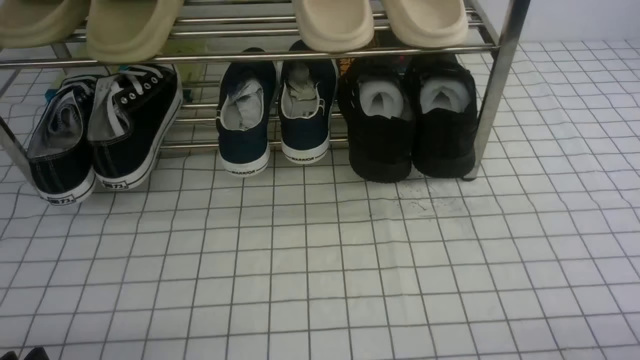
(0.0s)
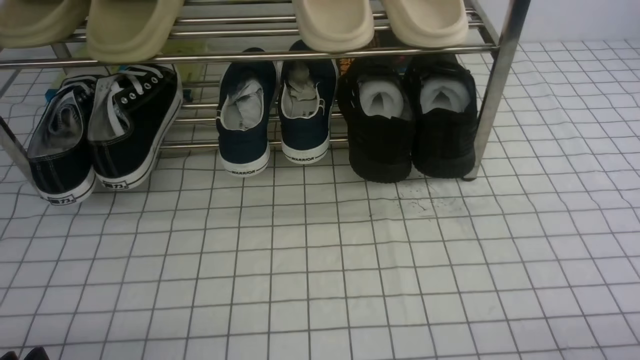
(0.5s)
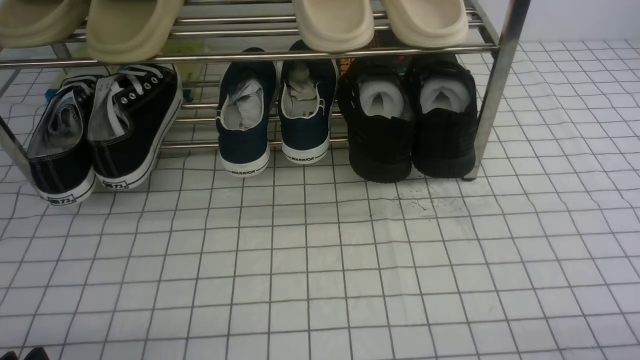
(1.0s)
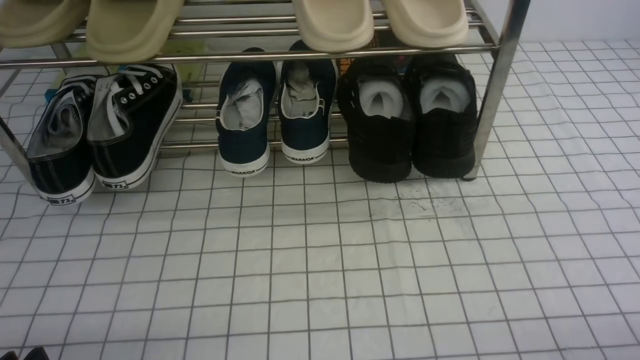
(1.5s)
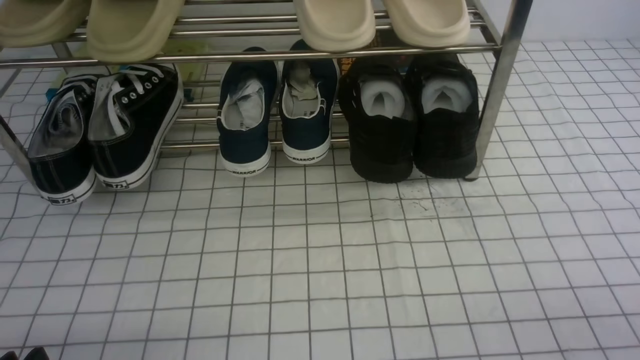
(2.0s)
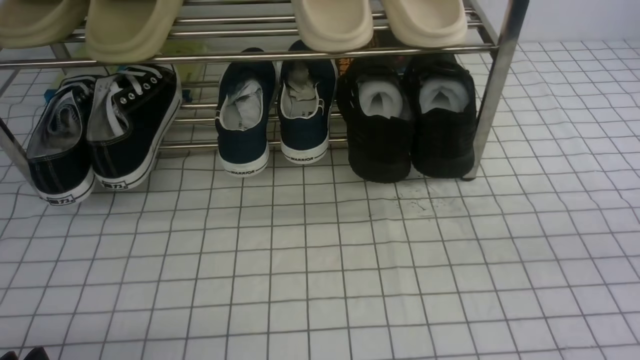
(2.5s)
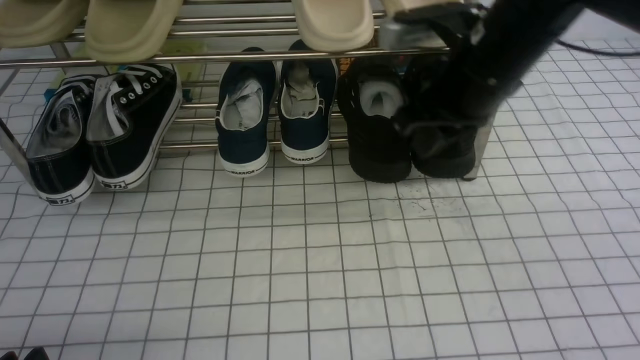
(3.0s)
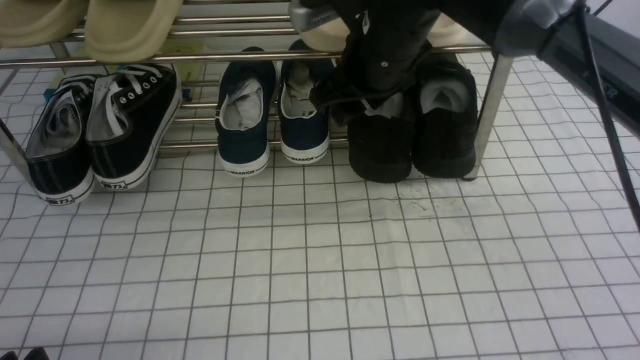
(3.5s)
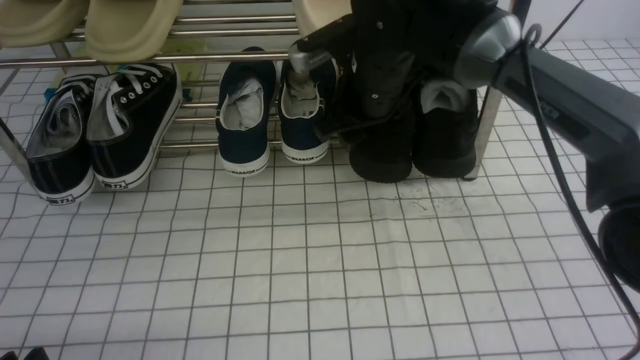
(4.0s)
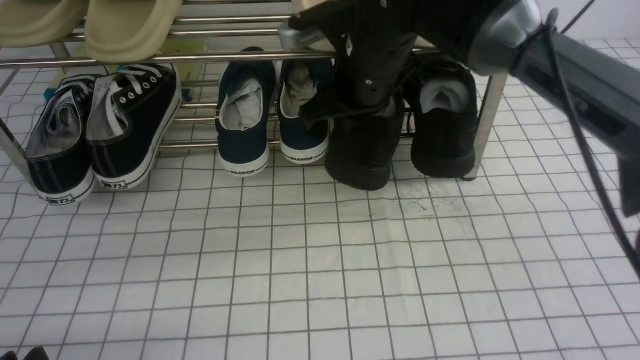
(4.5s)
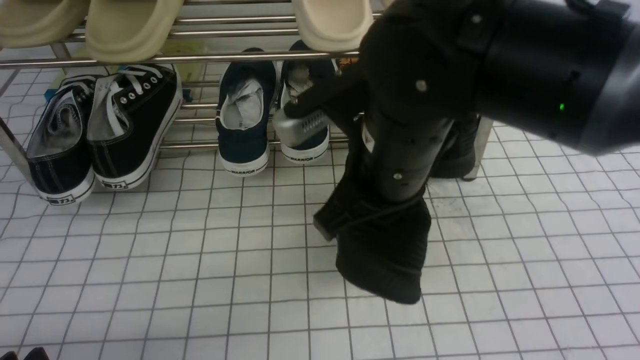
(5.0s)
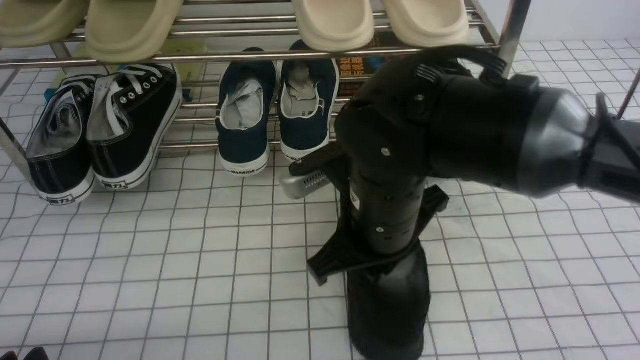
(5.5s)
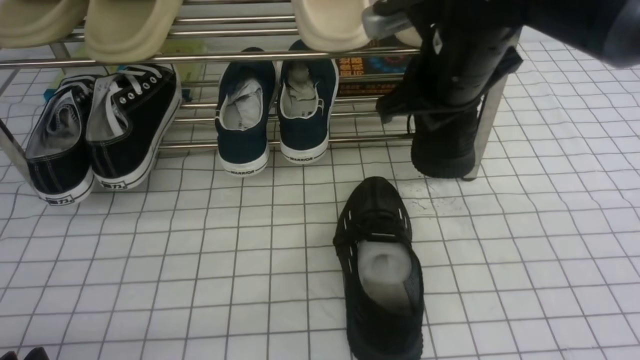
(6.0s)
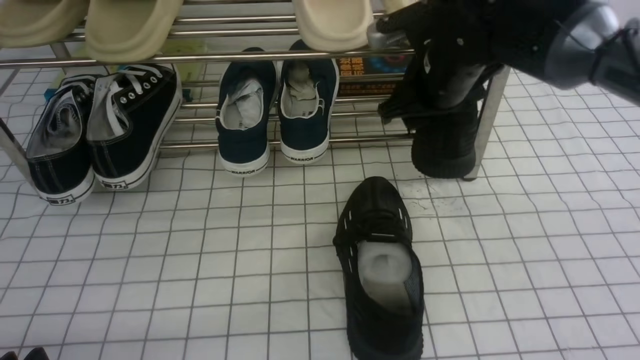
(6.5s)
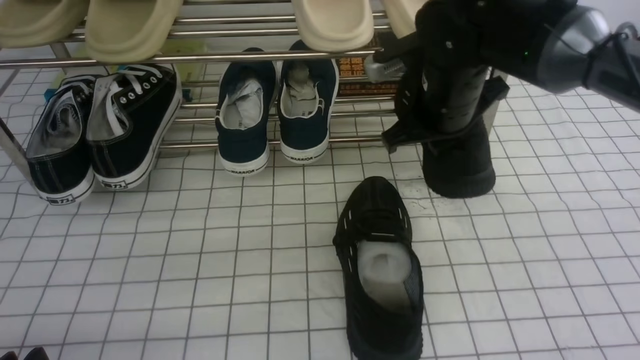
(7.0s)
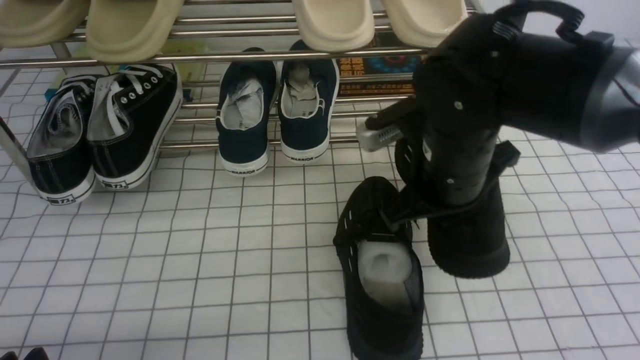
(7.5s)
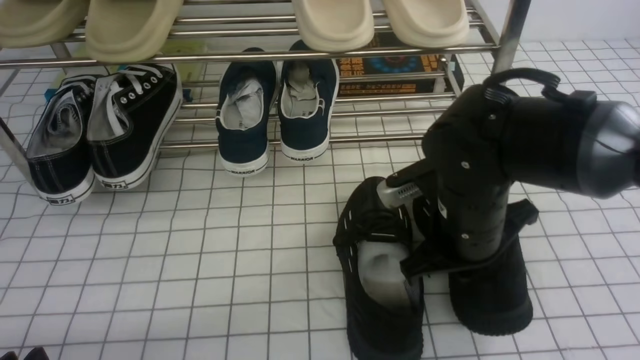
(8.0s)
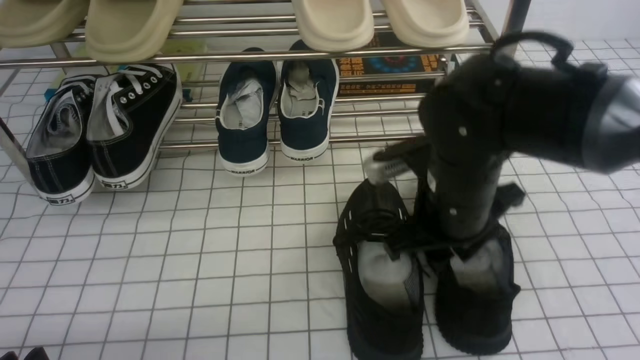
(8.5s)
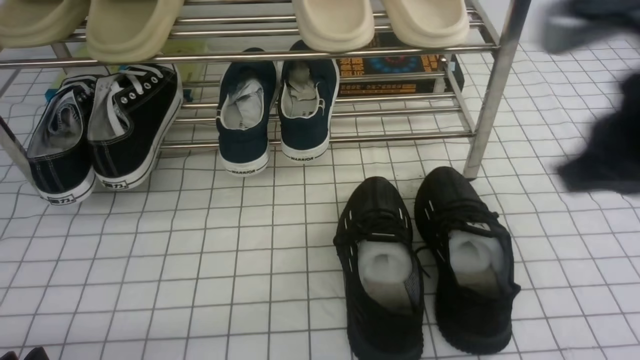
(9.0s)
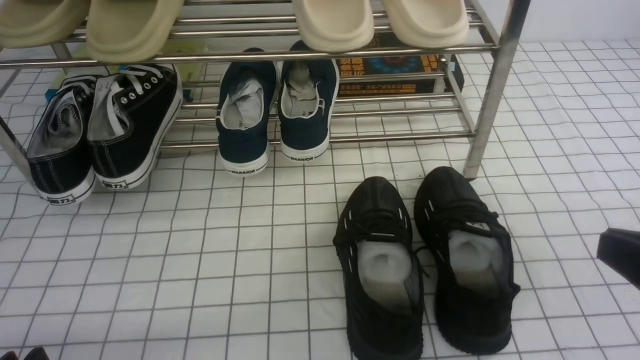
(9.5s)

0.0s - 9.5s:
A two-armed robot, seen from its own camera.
Step, 0.0s - 4.0s: use the right arm to clamp a shoe on the right side of the shoe rack.
Step, 4.5s - 5.5s: use the right arm to take out the clamped shoe from the shoe rack and put it down.
Step, 6.0s - 6.5s: use the right arm to clamp a shoe on the right side of the shoe rack.
Step, 7.0s - 8.5s: use the right arm to take out the clamped shoe from the shoe rack and put it down.
0.0s - 2.0s: The right gripper goes about 5 cm upward.
2.0s - 4.0s: The right gripper is displaced forward and to the left by approximately 40 cm, and opens up.
4.0s - 5.5s: The right gripper travels backward by roughly 15 cm, and closes up.
5.5s - 7.5s: The right gripper is displaced to the right by some 5 cm, travels forward and back again, approximately 15 cm each way, and opens and closes again.
7.5s - 9.5s: The right gripper goes about 25 cm backward and to the right, and opens, then closes again.

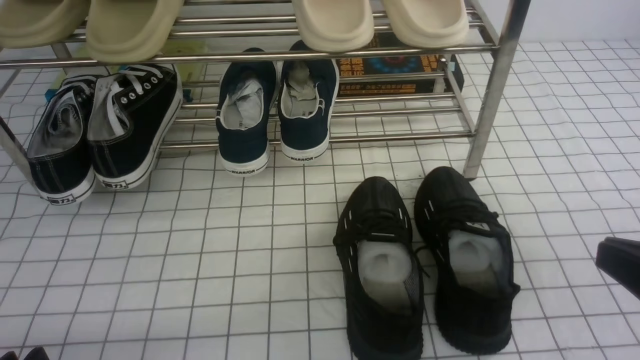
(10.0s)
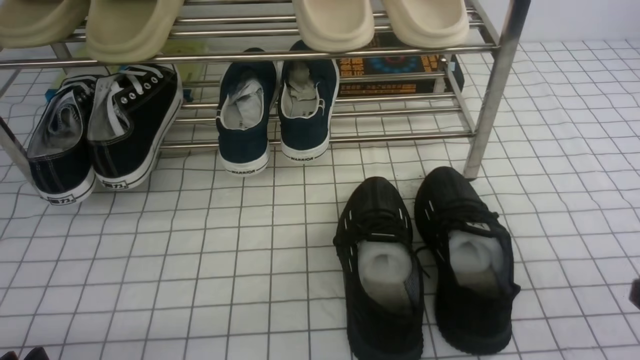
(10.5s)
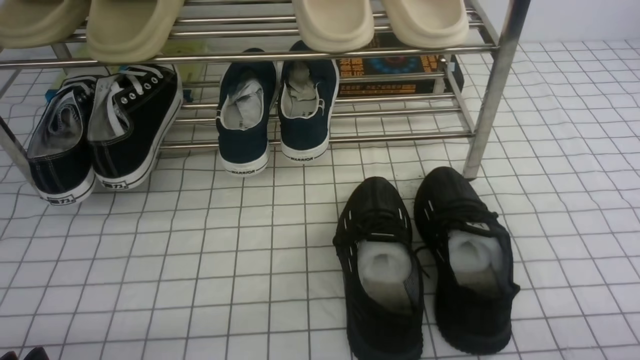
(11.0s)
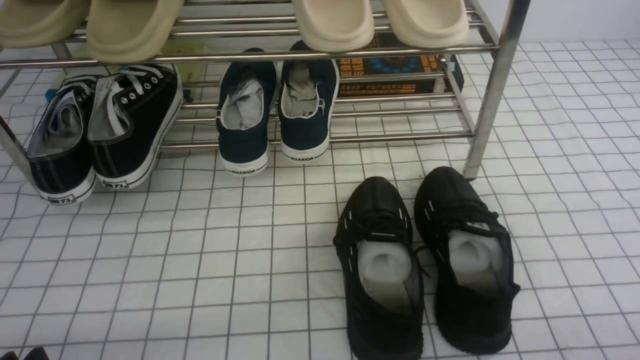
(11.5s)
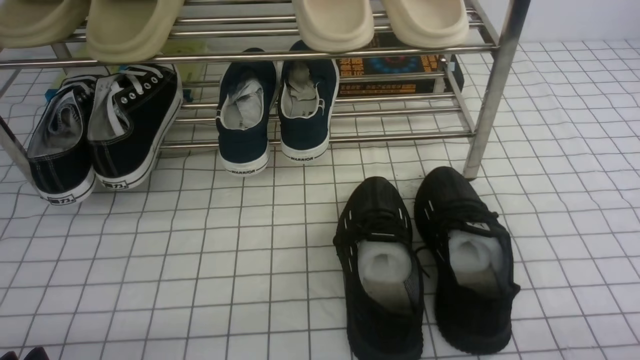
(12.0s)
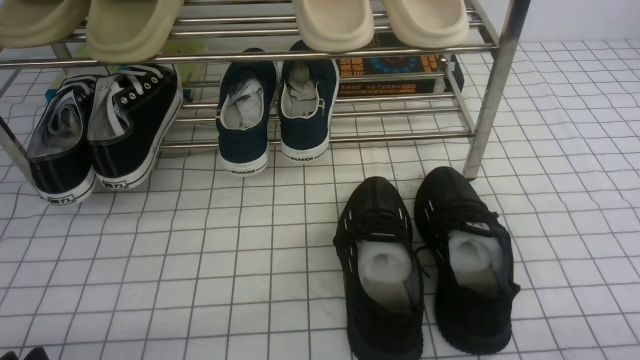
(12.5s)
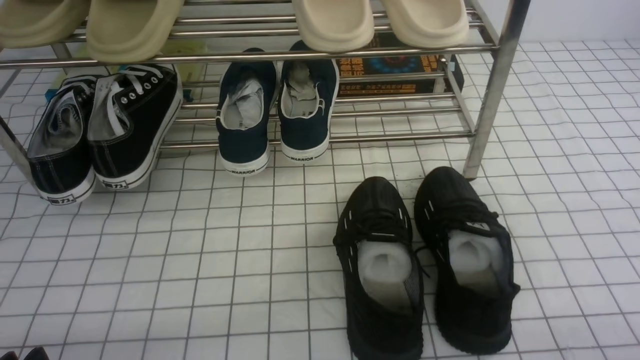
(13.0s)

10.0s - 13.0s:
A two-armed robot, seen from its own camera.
10.0s - 11.5s: The right gripper is displaced downward and to the right by approximately 15 cm.
11.5s - 13.0s: Both grippers stay put.

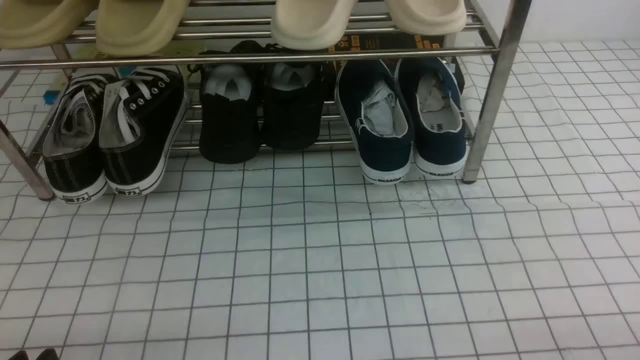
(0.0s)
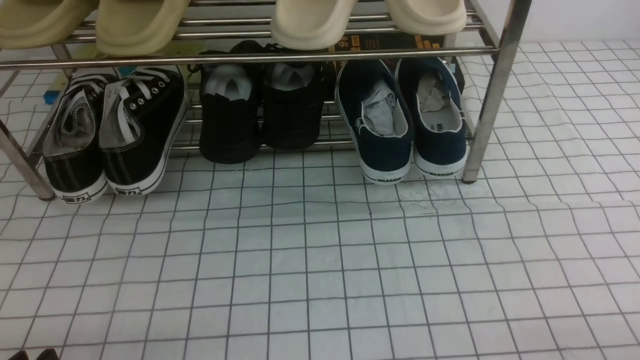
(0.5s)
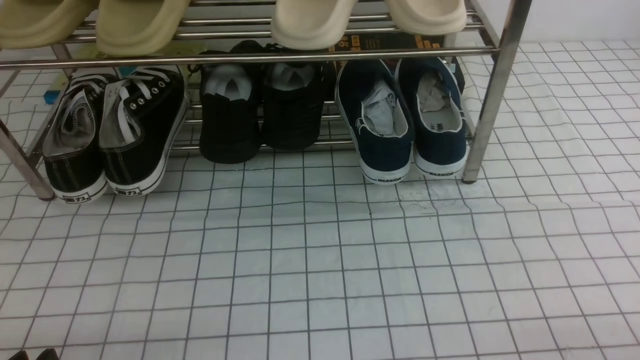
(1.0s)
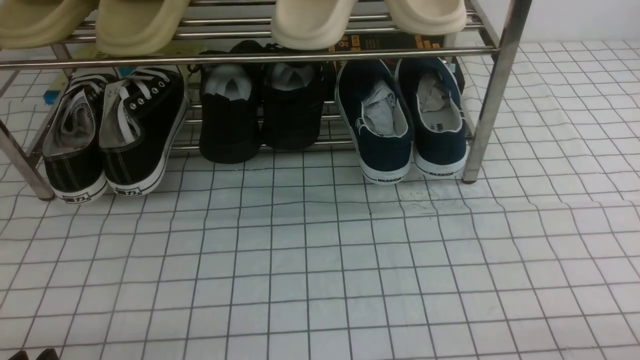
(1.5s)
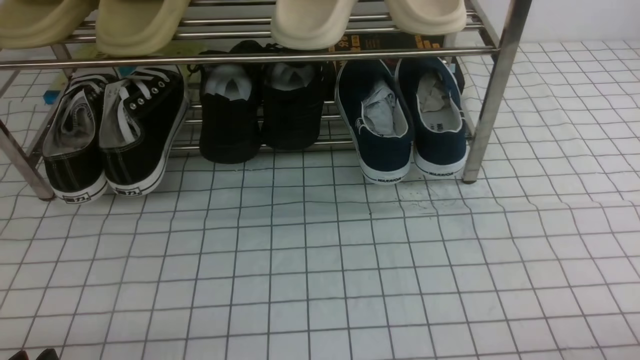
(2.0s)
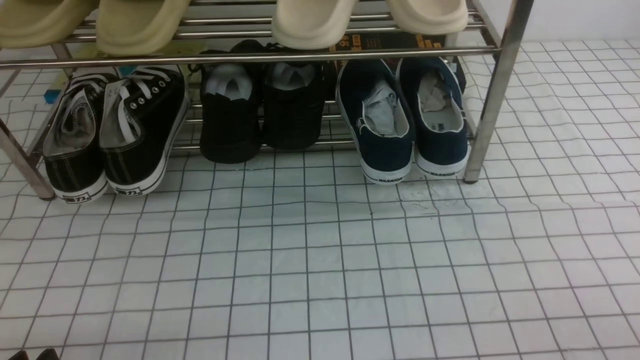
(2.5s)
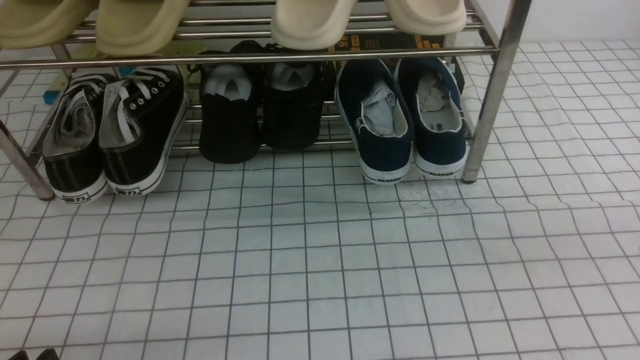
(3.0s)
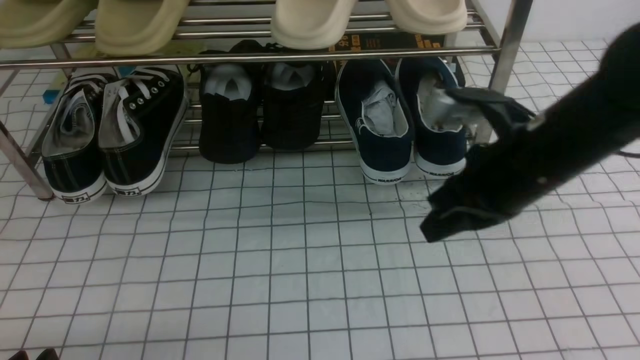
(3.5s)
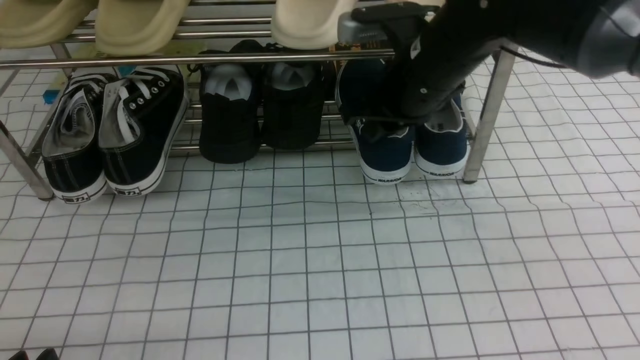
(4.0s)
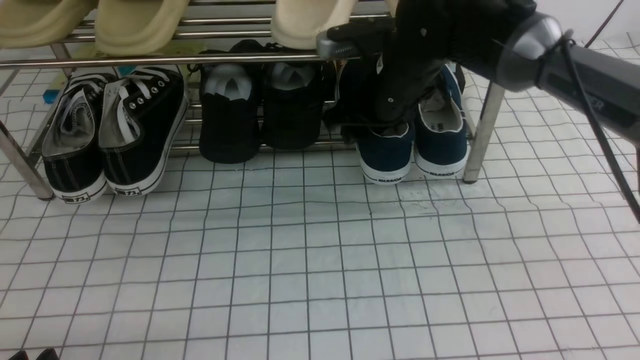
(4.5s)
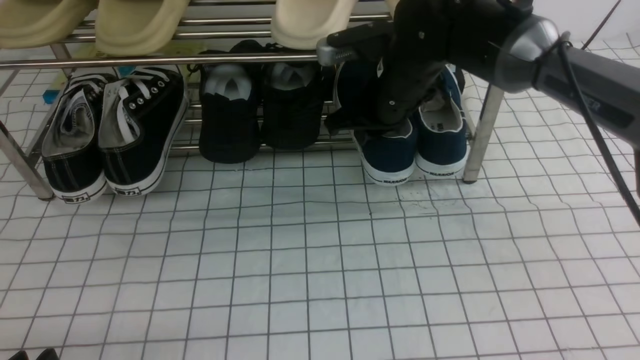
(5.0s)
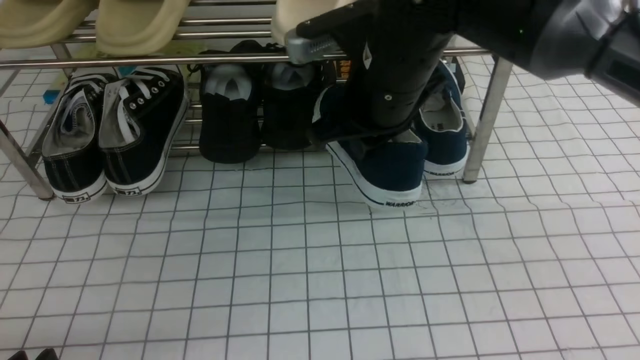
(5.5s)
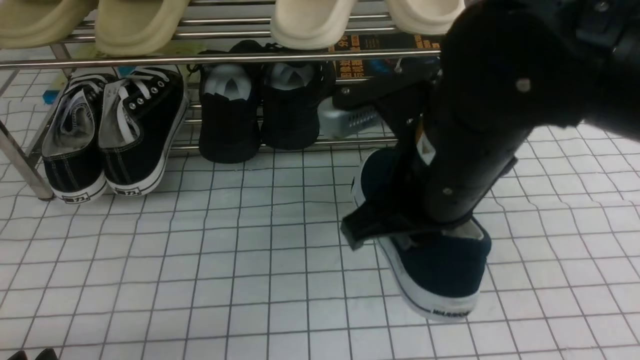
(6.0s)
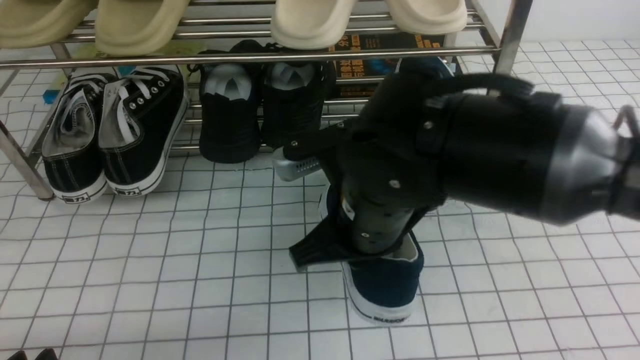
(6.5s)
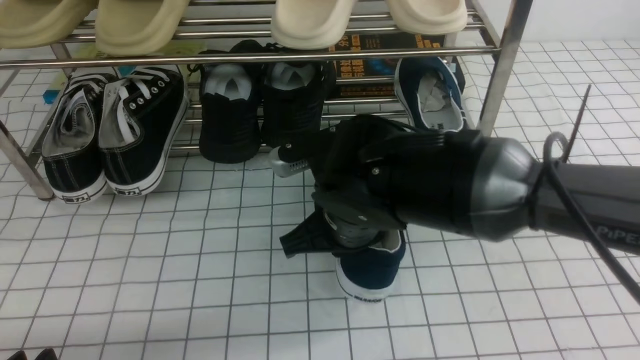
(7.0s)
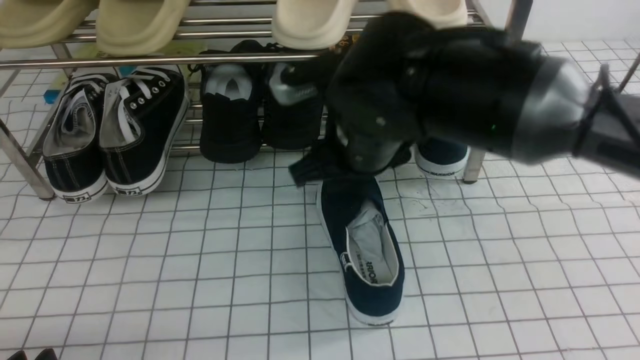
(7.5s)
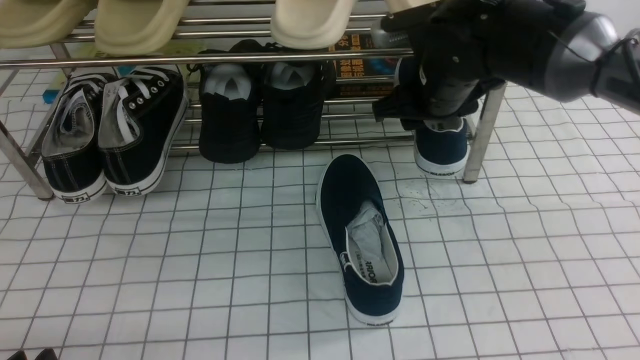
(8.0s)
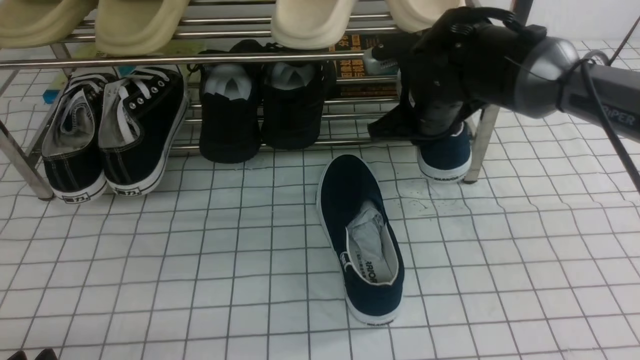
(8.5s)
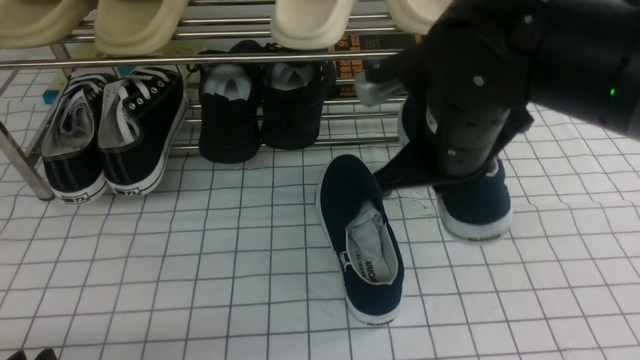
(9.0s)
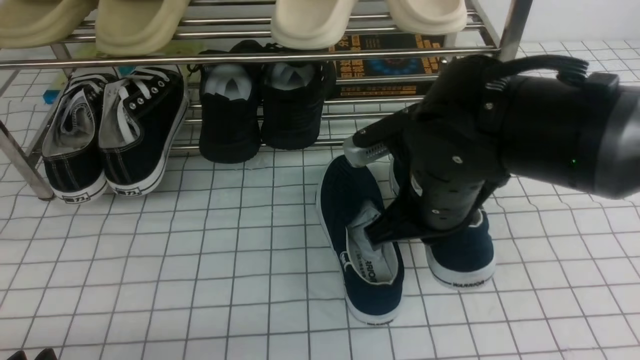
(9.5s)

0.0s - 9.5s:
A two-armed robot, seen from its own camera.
Step, 0.0s - 4.5s: use the right arm to clamp a shoe on the right side of the shoe rack.
Step, 5.0s - 7.5s: use the right arm to take out the clamped shoe from the shoe rack and put it down.
2.0s - 4.0s: The right gripper heads forward, to the left and upward, covering some 40 cm.
4.0s - 5.5s: The right gripper goes forward and returns, some 5 cm each way, and opens, then closes again.
5.5s - 7.5s: The right gripper opens up.
7.5s - 9.5s: The right gripper goes approximately 5 cm to the right, reaches about 10 cm forward, then returns, and closes its fingers.
